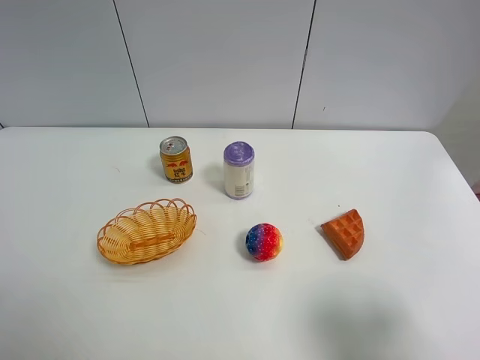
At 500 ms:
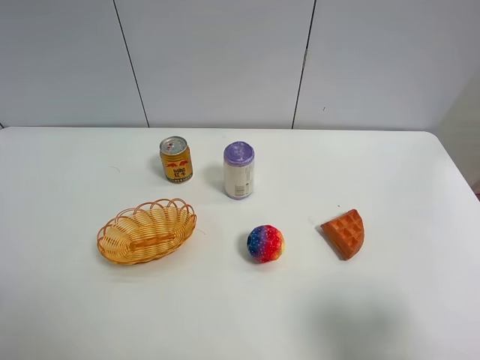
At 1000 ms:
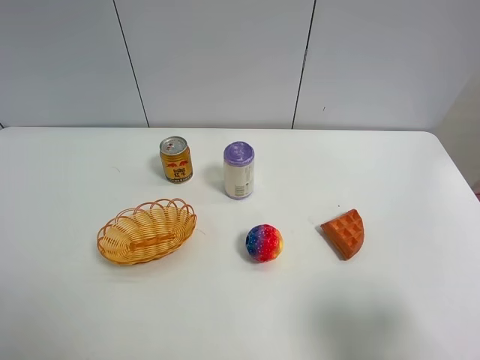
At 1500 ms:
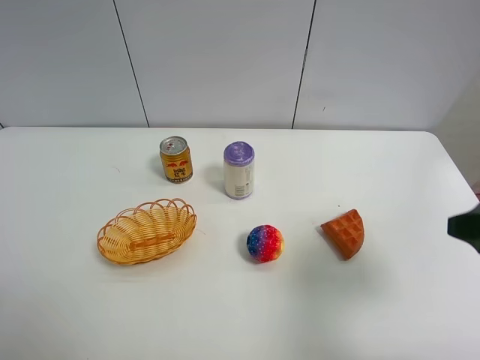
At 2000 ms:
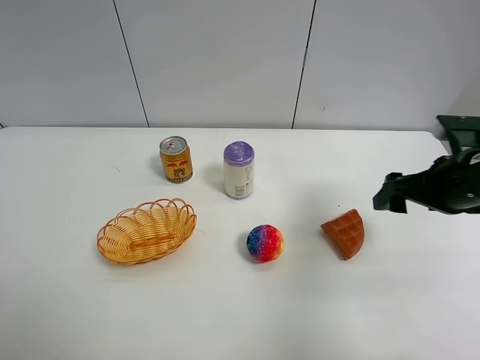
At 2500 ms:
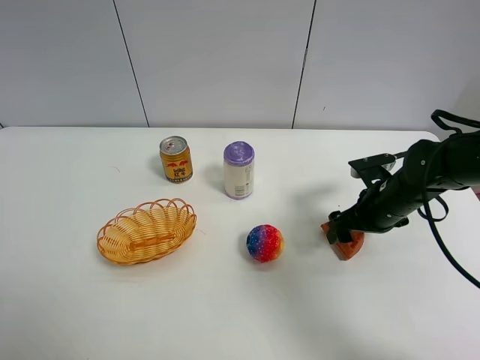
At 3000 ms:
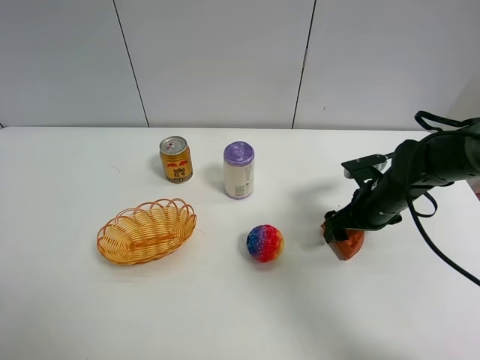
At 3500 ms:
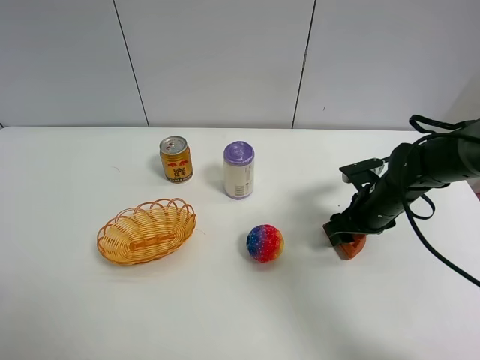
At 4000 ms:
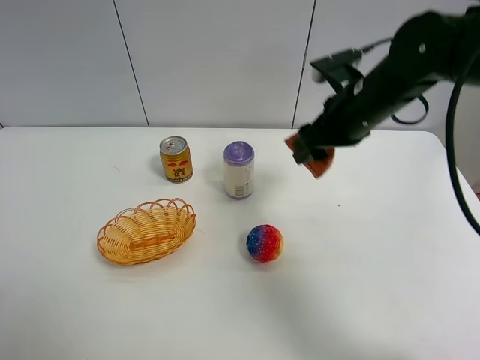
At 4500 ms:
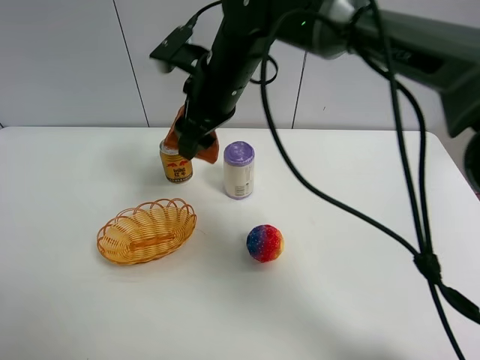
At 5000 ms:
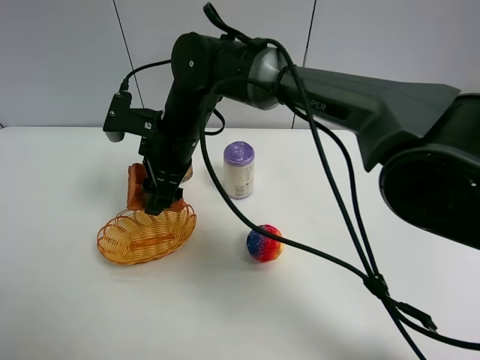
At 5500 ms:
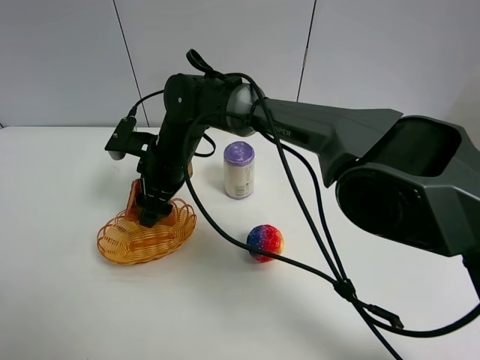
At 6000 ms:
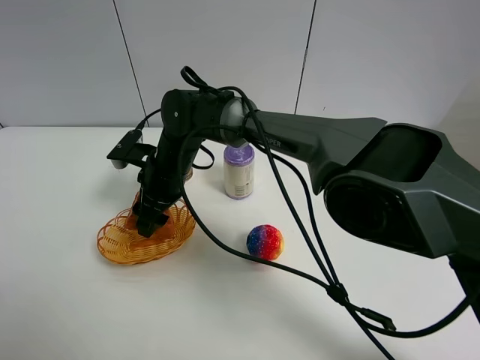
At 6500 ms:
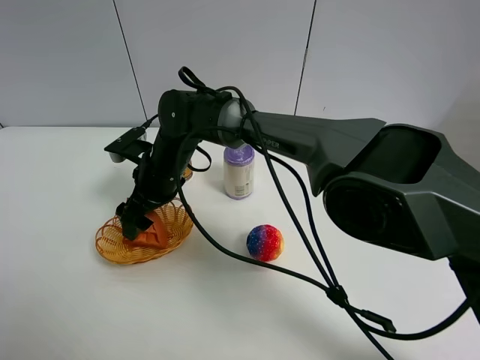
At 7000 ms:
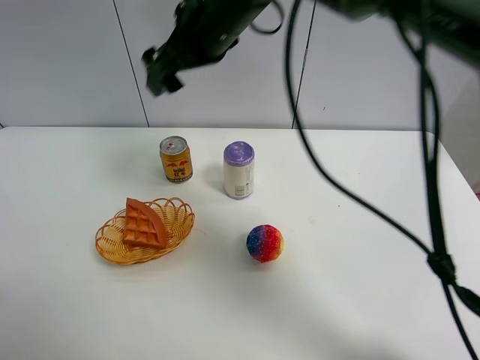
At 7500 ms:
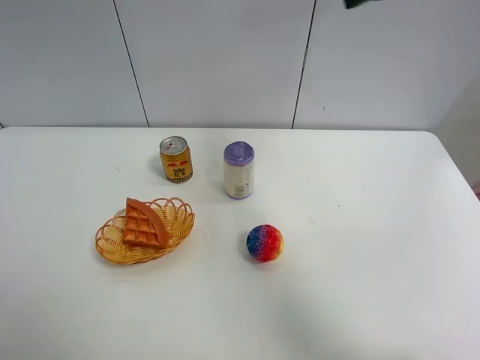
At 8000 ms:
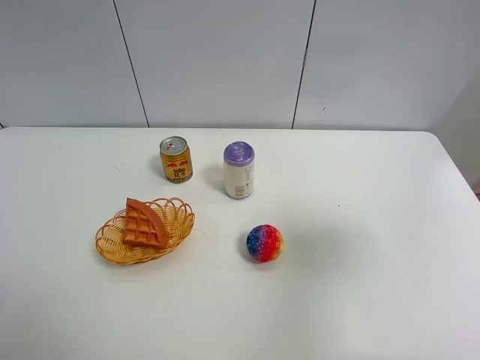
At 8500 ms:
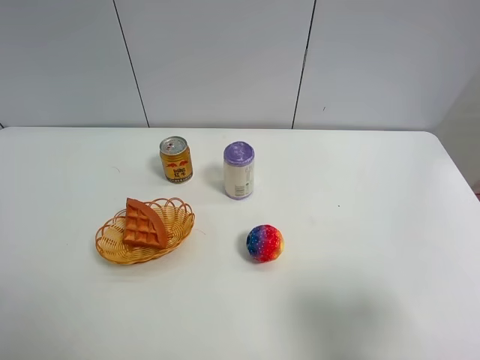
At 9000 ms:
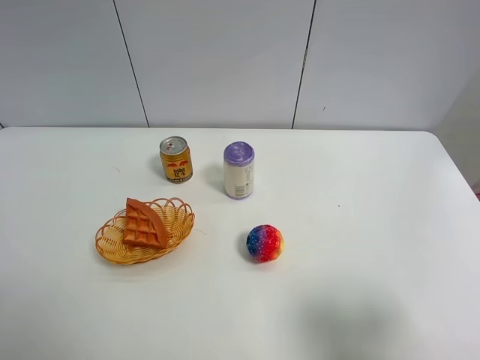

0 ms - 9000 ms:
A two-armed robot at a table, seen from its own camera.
Task of the whole recording: Put the bakery in the basket.
Step, 0 ms - 3000 ms: Grasp the bread with right gripper.
Step, 3500 ms - 6500 ms: Place the bread in the basket with right gripper.
0 ms - 2000 ms: The right gripper heads forward, covering some 25 cm.
2000 ms - 4500 ms: The right gripper is displaced to the left by approximately 30 cm, and closes its fingers.
4500 ms - 7000 ms: The right gripper is displaced upward by some 10 cm, and opens its fingers.
7000 ms - 9000 ms: The right gripper travels backward and to the right by about 50 cm.
